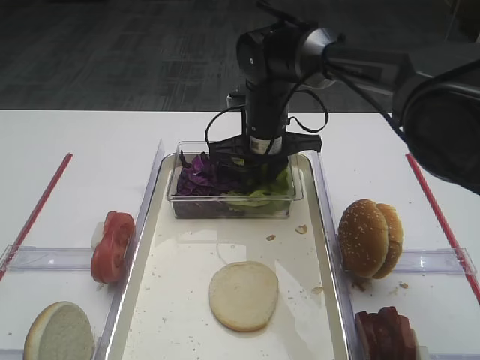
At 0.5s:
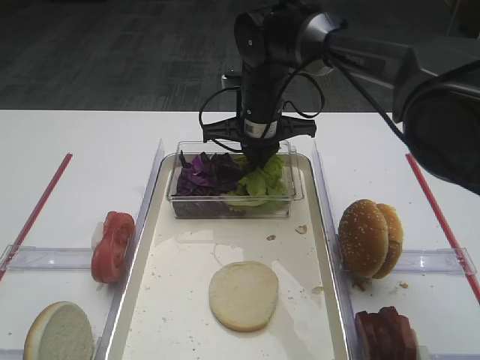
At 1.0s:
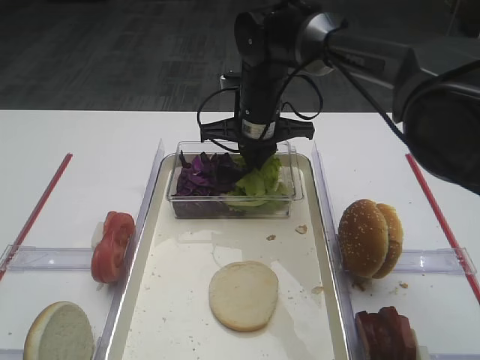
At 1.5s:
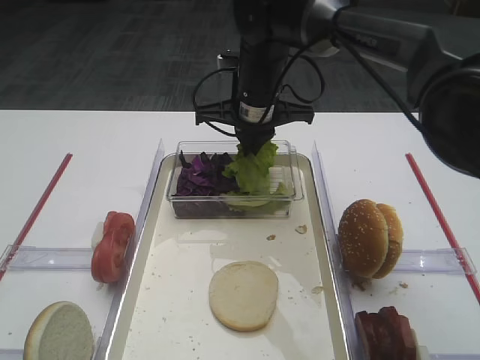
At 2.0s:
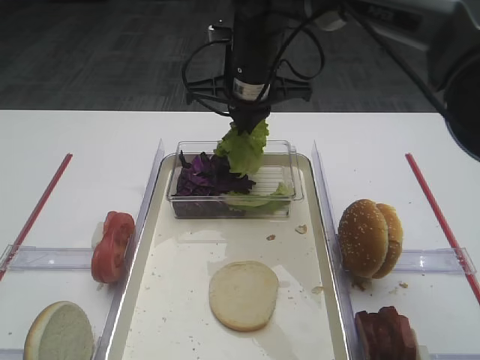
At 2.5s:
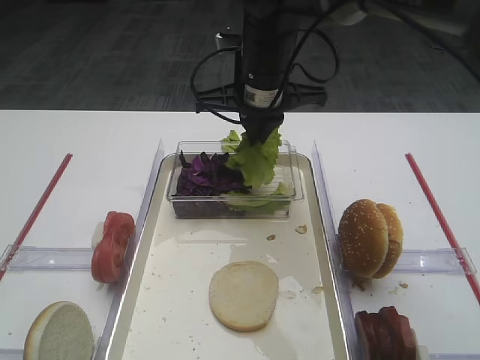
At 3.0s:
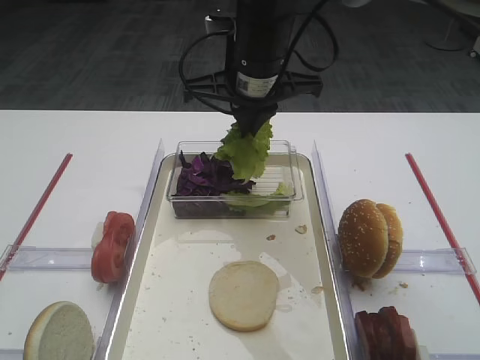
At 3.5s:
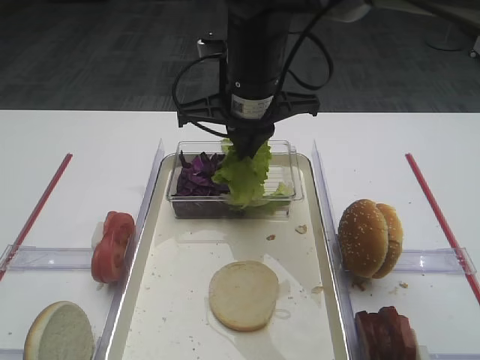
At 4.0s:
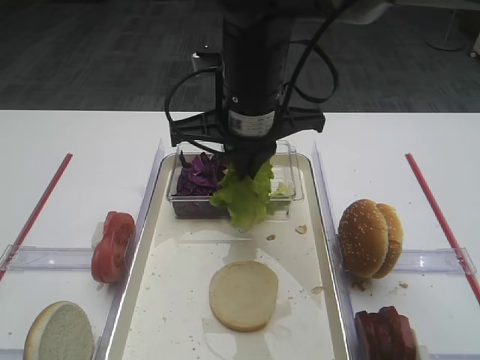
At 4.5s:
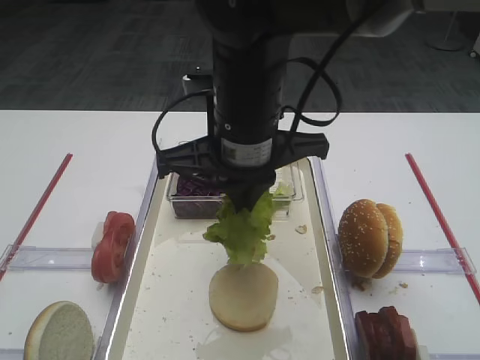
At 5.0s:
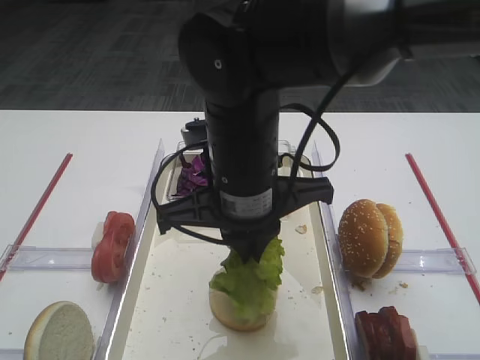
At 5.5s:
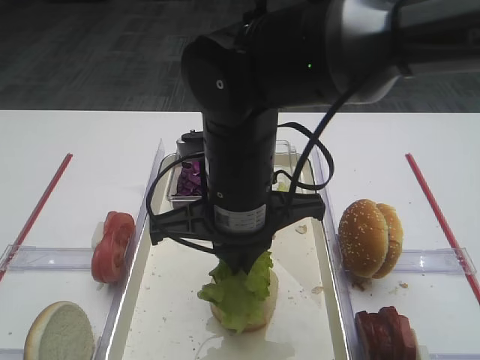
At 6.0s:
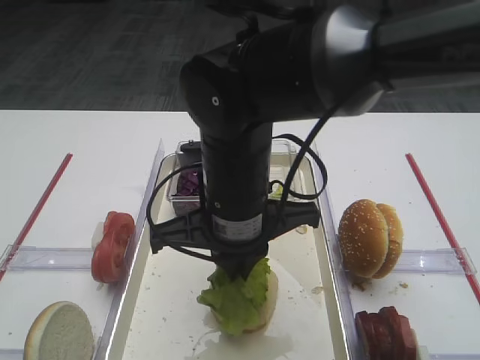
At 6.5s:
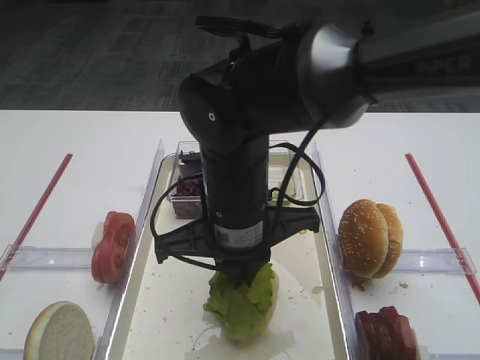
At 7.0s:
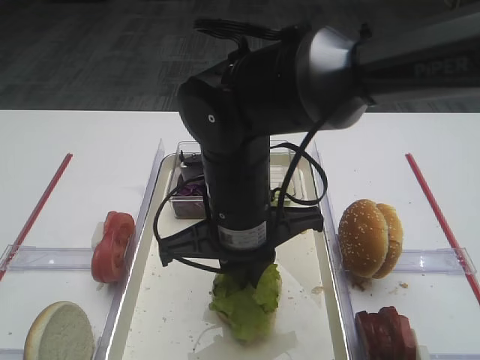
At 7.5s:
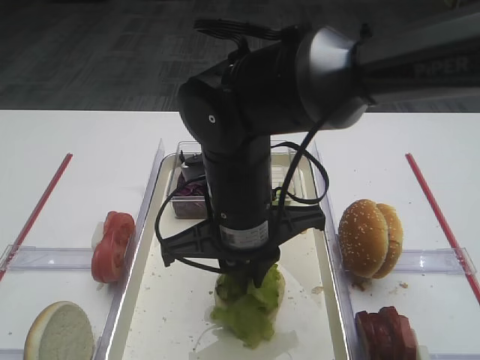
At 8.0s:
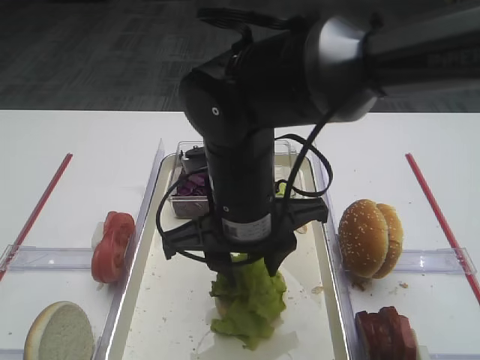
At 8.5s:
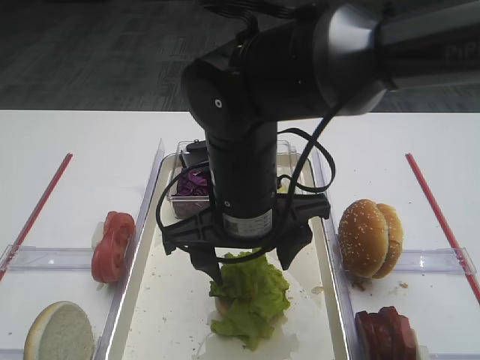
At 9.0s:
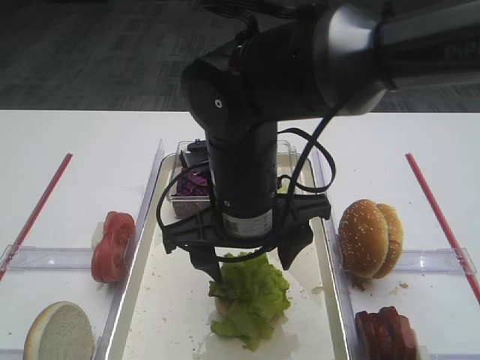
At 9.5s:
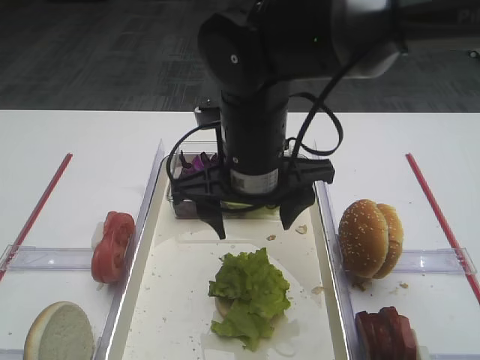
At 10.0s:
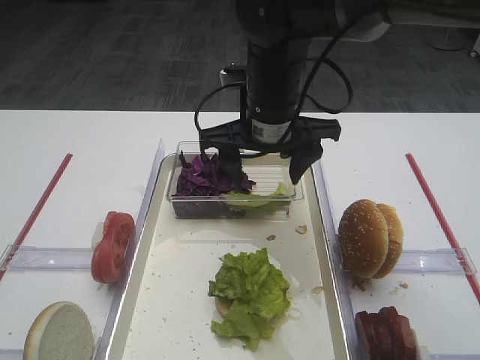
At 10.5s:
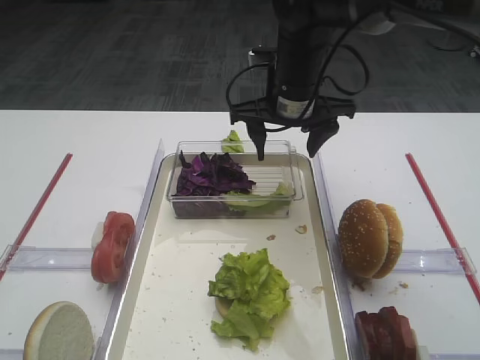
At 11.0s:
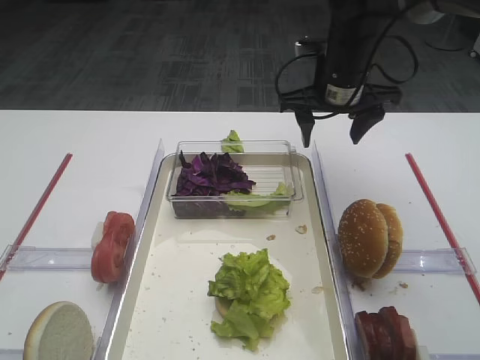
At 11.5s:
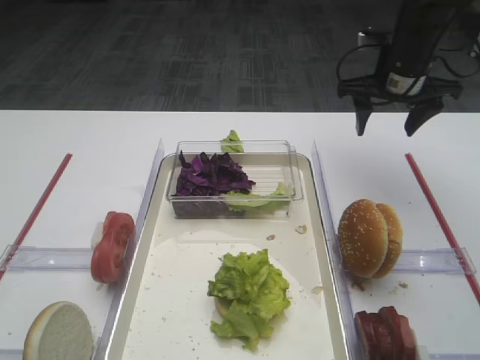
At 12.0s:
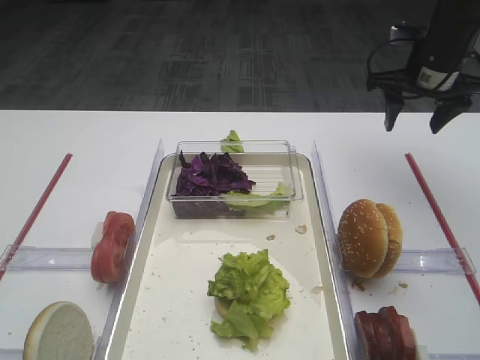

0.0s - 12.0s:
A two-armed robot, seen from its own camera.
Step, 0.0s - 2.0s: Pick up the lettuce leaf with the right gripper.
Step, 2.5s - 9.0s: Place the lettuce leaf on the bread slice with the right gripper.
0.0s - 2.0s: The right gripper goes roughly 10 cm upward.
2.0s - 4.0s: The right gripper is displaced backward by approximately 10 cm.
4.0s - 6.0s: The right gripper travels backward and downward by approximately 10 cm.
6.0s - 8.0s: The right gripper opens.
8.0s - 10.0s: The right gripper shifts roughly 10 cm forward, and opens up.
10.0s - 12.0s: The right gripper heads to the right and forward, covering roughly 25 cm.

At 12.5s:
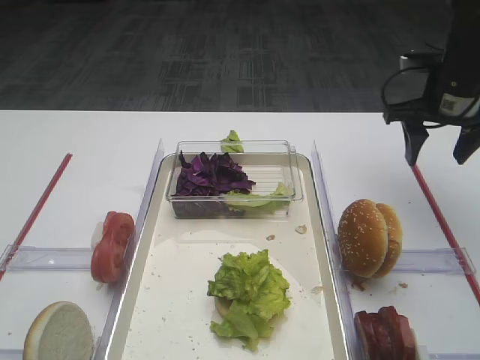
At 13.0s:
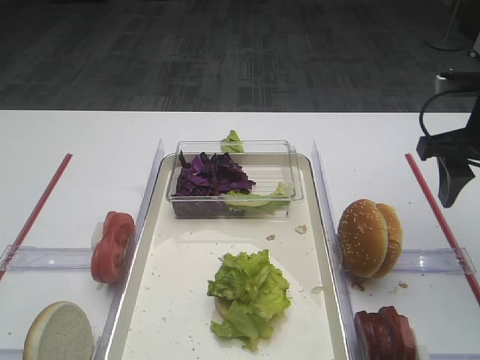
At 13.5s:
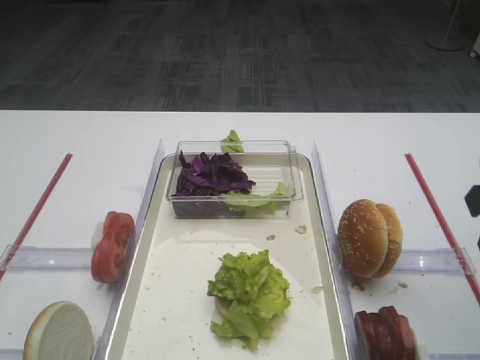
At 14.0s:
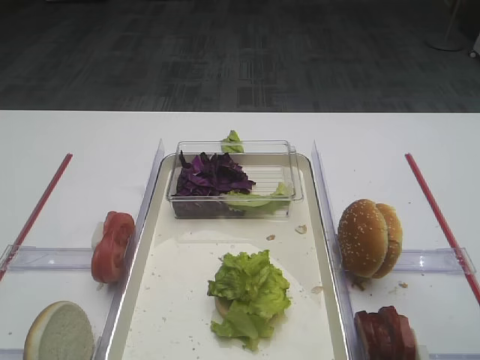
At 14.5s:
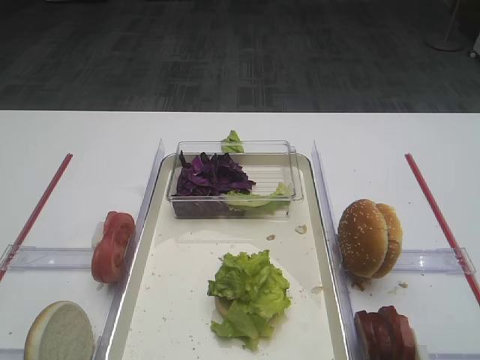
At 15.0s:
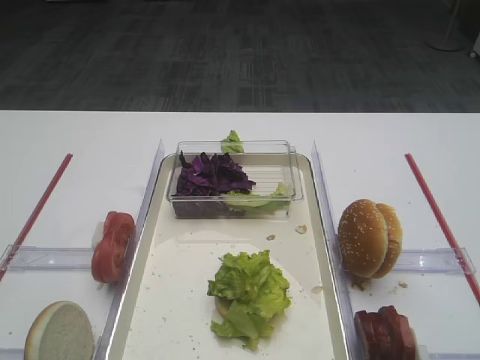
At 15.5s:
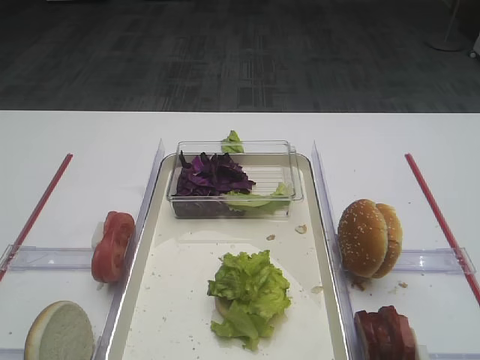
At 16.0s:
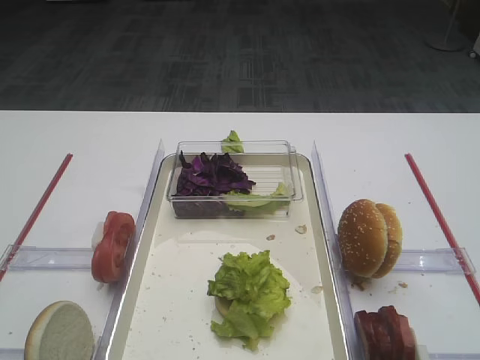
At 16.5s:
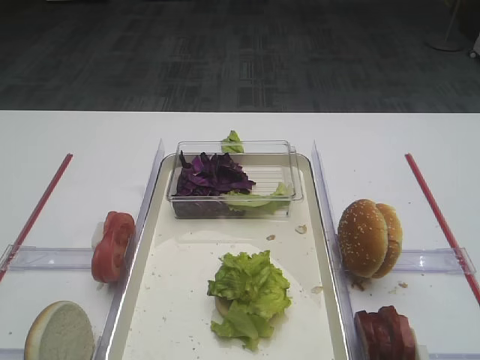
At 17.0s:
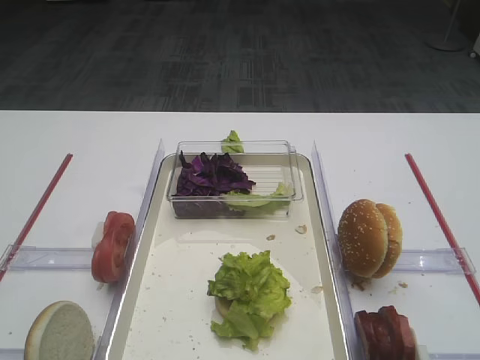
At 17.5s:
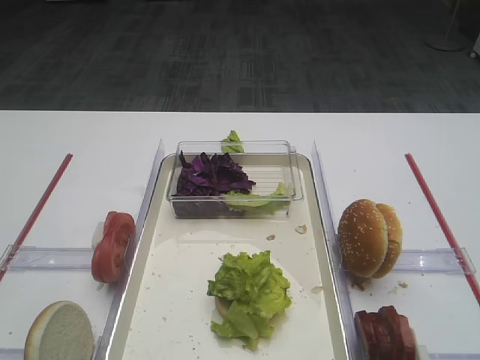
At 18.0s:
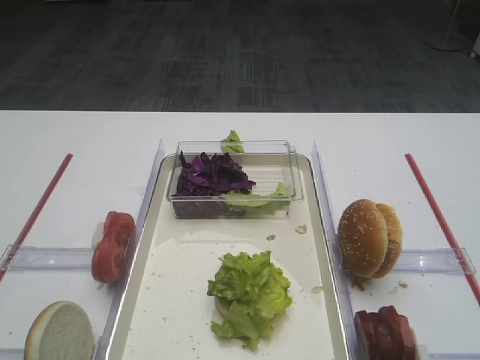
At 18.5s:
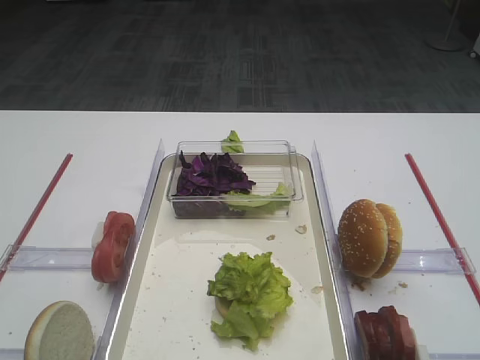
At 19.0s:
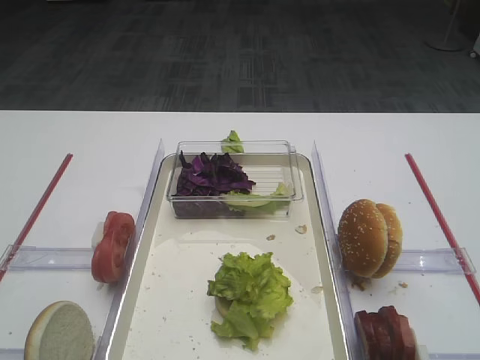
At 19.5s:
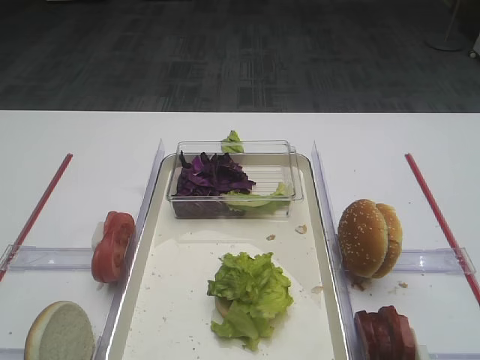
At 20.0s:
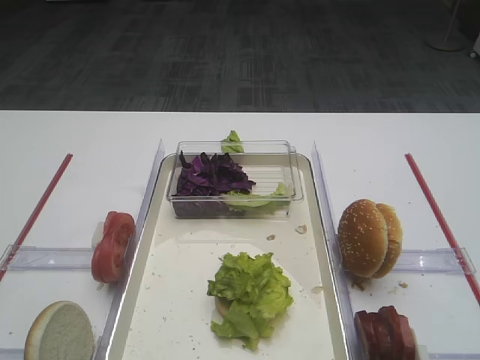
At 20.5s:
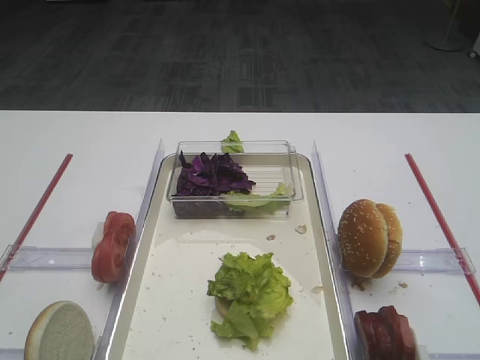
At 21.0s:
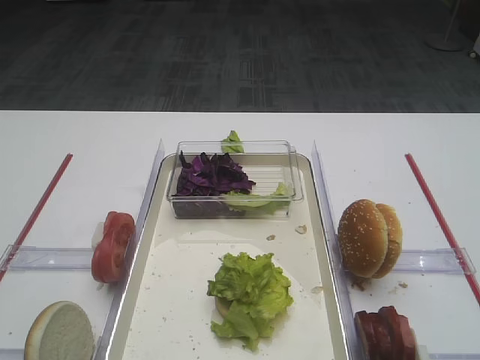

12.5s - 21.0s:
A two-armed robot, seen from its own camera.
12.5s - 14.5s: The right gripper moves backward, about 35 cm.
19.0s - 21.0s: Both grippers stay put.

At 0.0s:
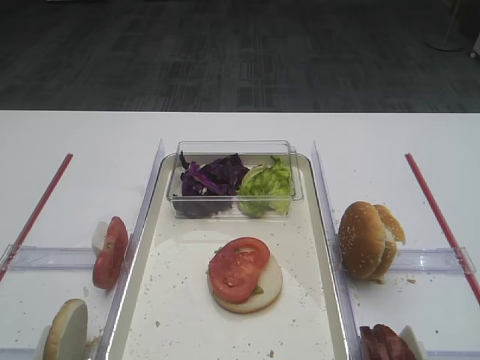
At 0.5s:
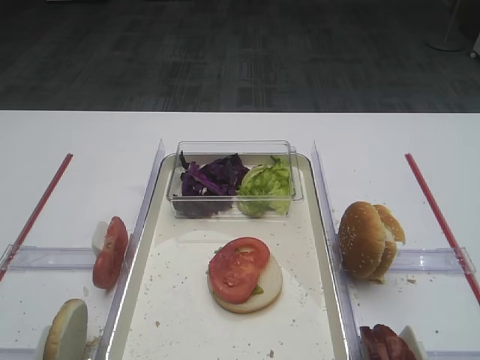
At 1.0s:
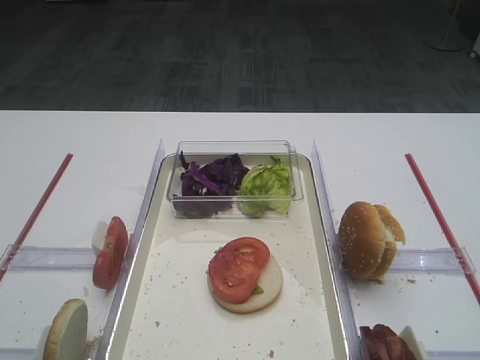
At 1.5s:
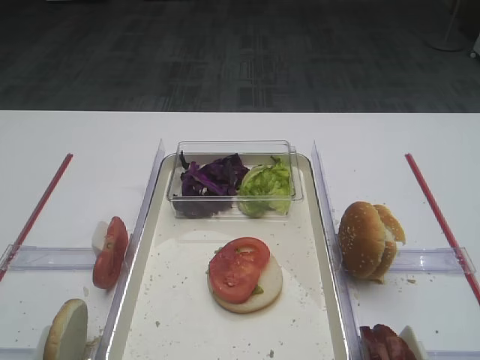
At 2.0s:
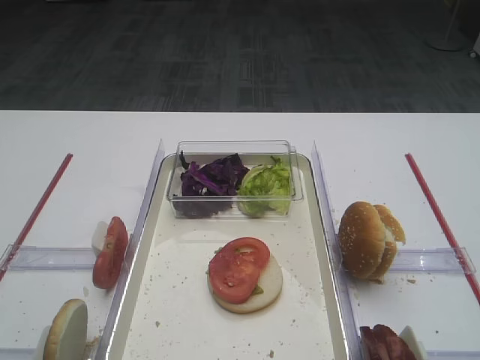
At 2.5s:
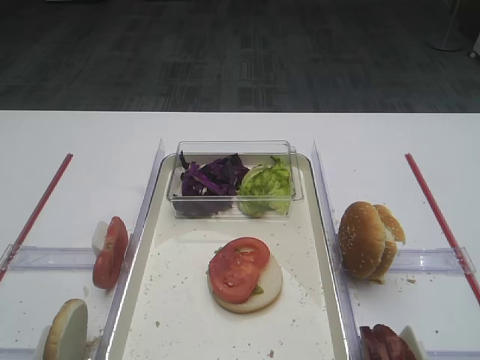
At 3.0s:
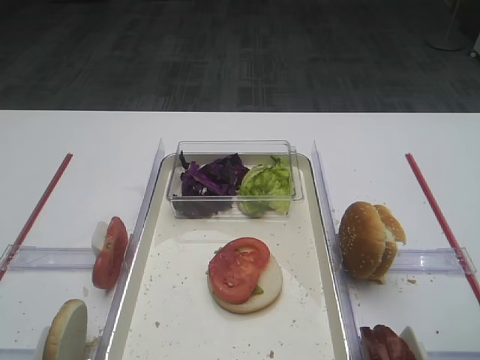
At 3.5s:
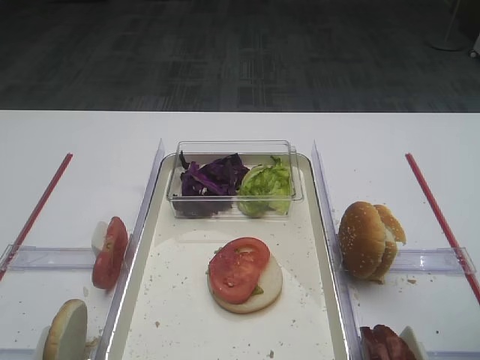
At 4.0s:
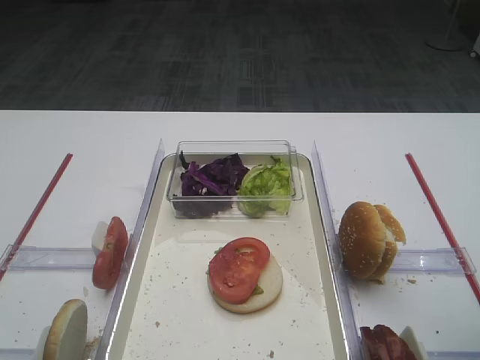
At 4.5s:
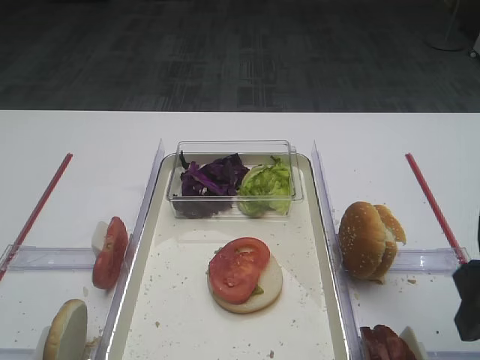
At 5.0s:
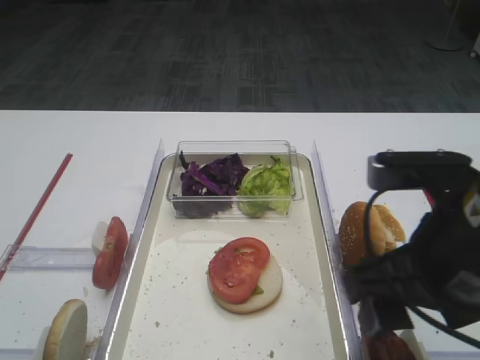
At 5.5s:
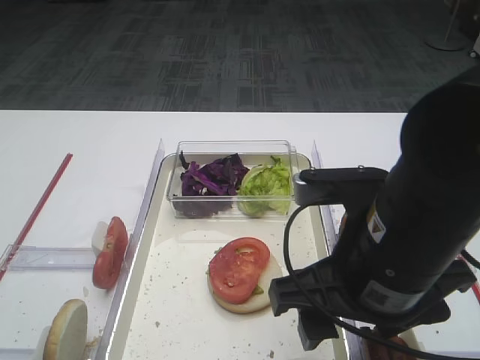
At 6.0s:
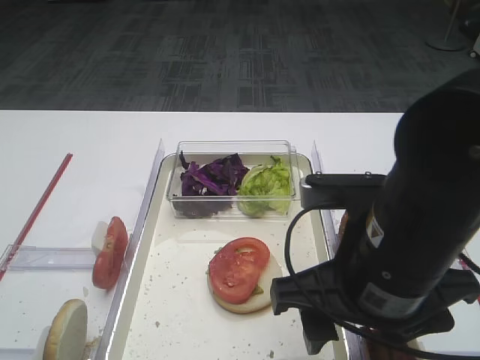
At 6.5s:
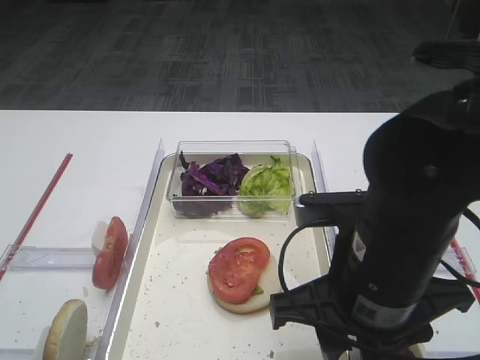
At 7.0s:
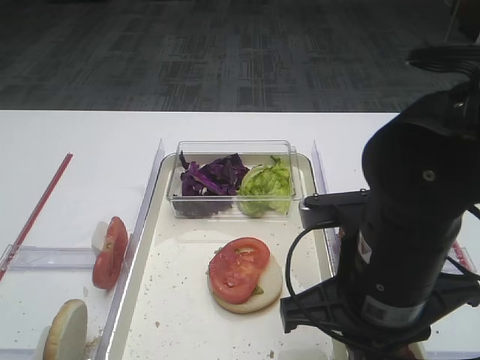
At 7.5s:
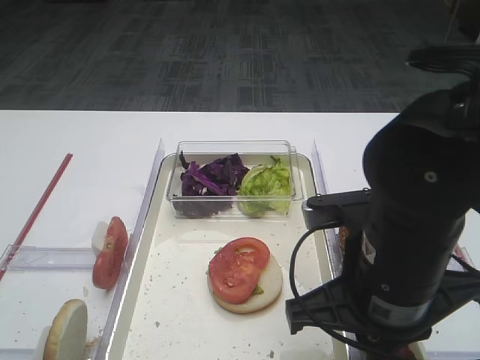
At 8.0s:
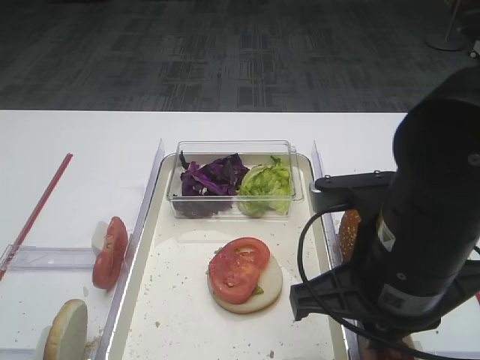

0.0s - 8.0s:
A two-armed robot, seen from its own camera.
2.0s - 4.0s: The right gripper shifts approximately 15 cm forward.
4.0s - 6.0s: The right gripper shifts roughly 15 cm to the left.
6.0s - 8.0s: The right gripper closes up.
